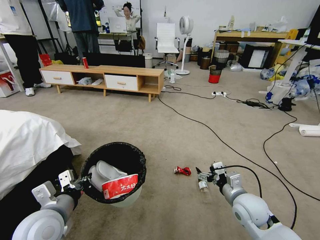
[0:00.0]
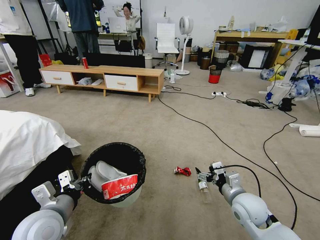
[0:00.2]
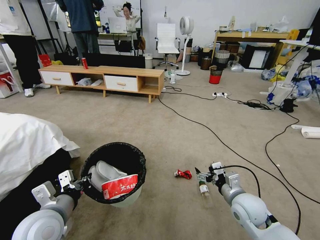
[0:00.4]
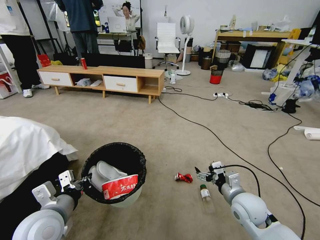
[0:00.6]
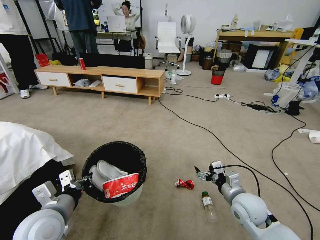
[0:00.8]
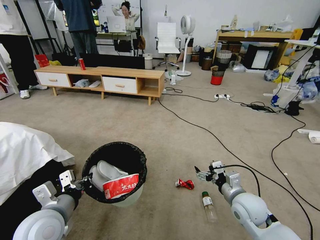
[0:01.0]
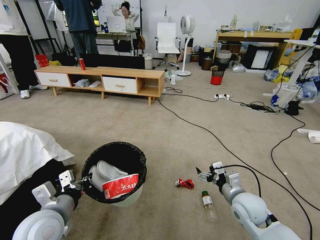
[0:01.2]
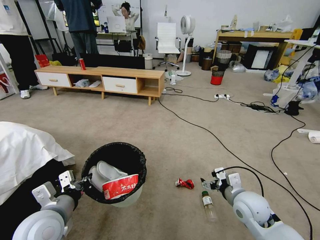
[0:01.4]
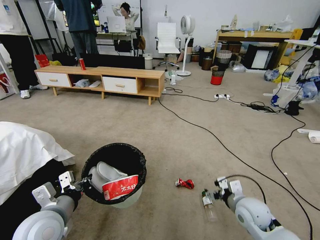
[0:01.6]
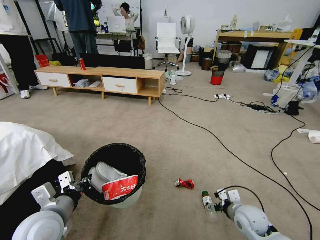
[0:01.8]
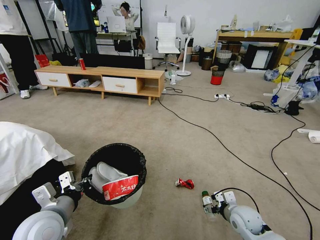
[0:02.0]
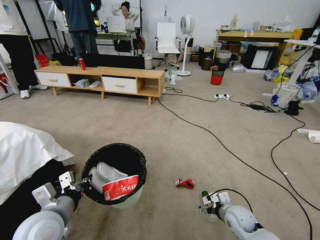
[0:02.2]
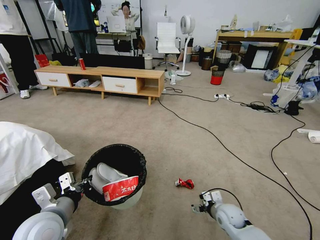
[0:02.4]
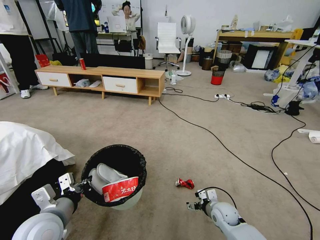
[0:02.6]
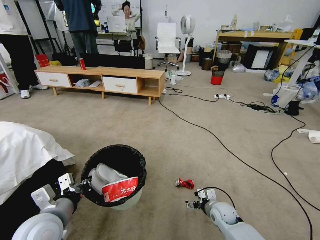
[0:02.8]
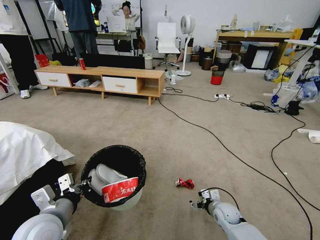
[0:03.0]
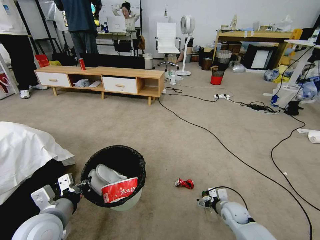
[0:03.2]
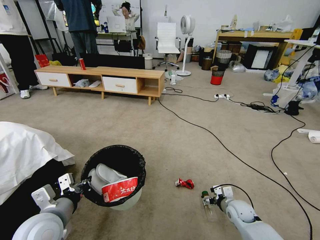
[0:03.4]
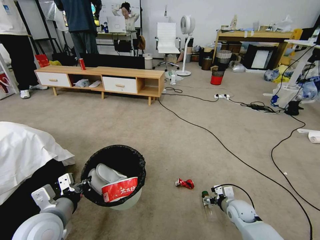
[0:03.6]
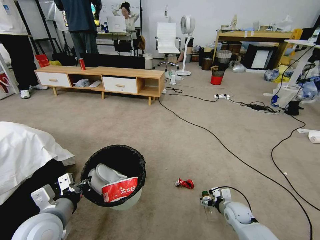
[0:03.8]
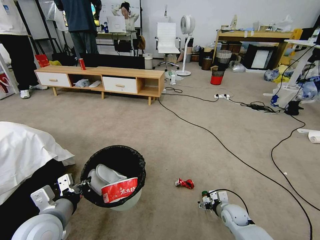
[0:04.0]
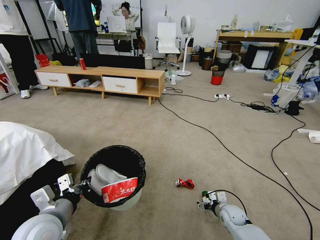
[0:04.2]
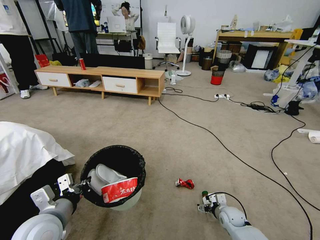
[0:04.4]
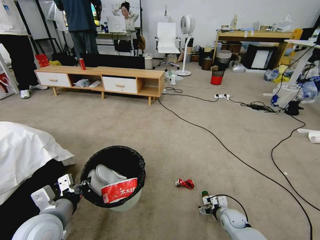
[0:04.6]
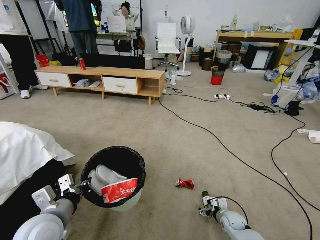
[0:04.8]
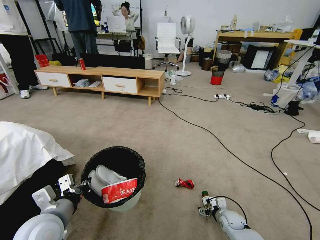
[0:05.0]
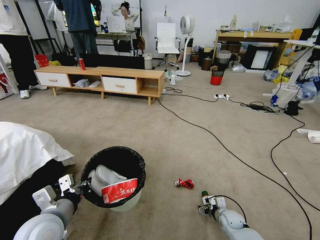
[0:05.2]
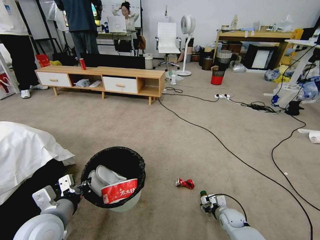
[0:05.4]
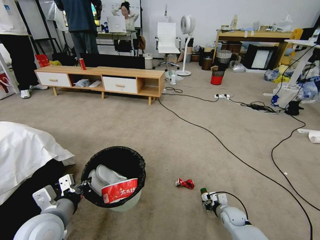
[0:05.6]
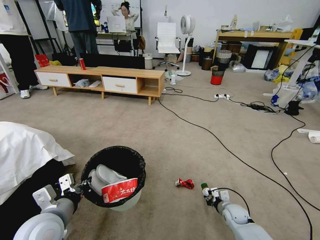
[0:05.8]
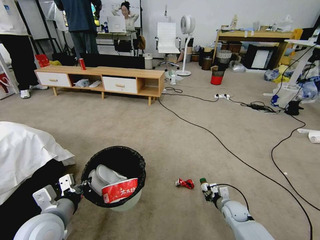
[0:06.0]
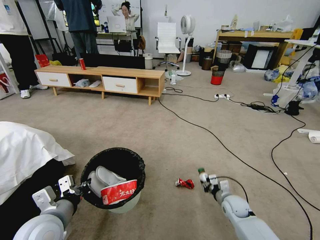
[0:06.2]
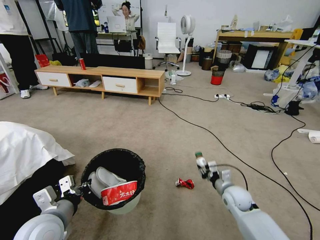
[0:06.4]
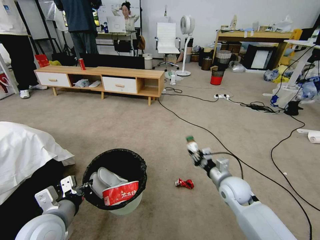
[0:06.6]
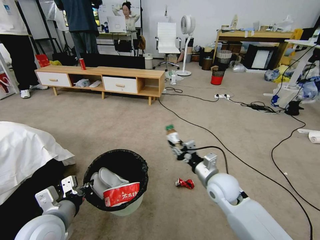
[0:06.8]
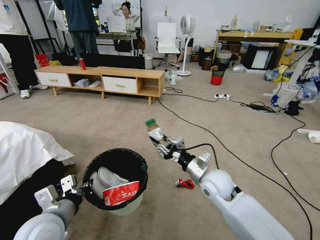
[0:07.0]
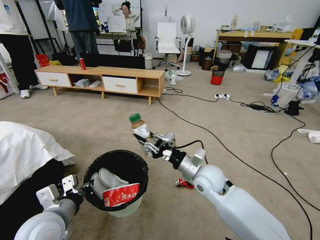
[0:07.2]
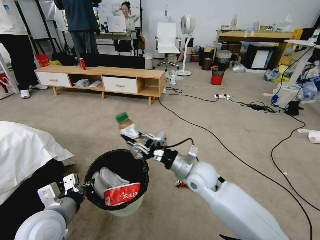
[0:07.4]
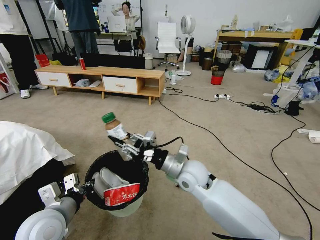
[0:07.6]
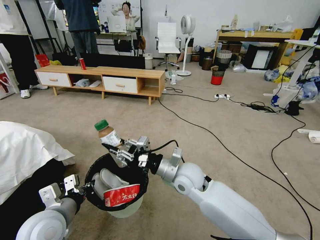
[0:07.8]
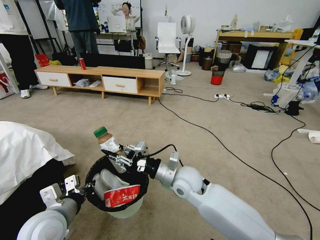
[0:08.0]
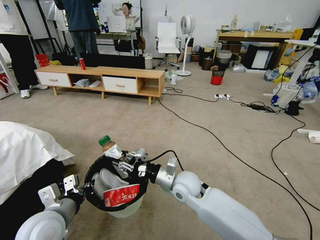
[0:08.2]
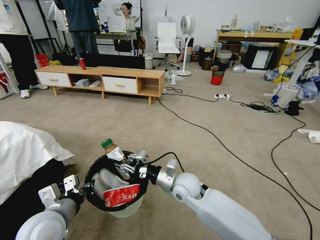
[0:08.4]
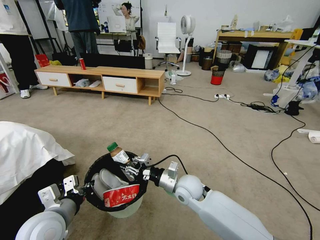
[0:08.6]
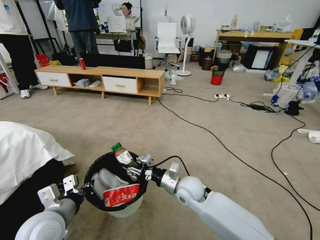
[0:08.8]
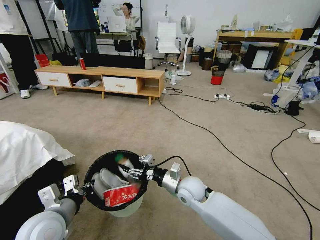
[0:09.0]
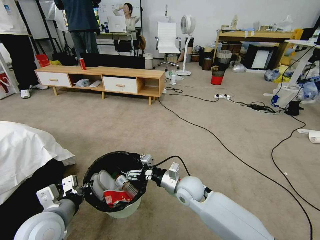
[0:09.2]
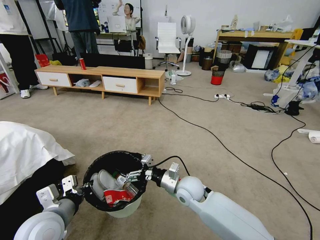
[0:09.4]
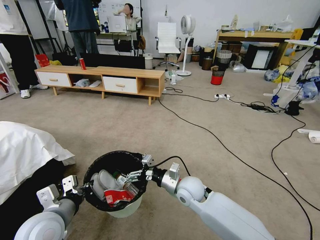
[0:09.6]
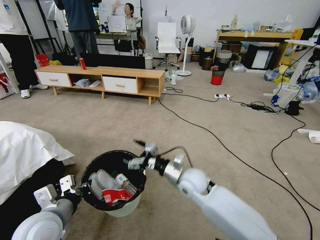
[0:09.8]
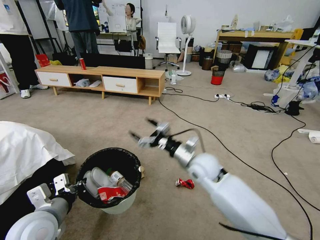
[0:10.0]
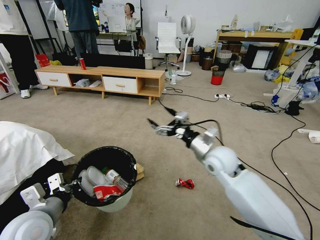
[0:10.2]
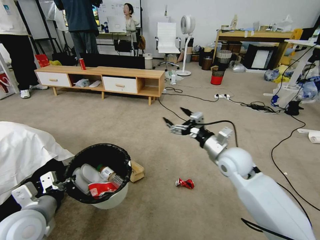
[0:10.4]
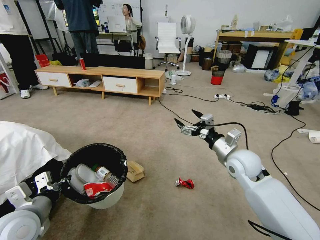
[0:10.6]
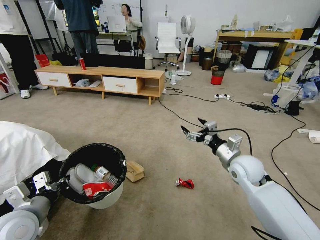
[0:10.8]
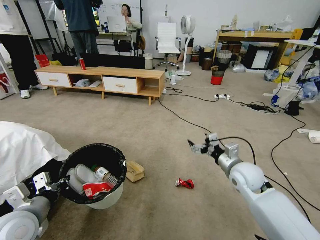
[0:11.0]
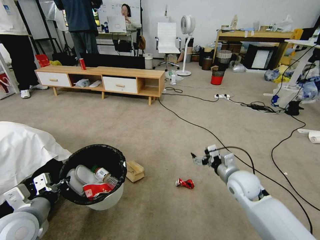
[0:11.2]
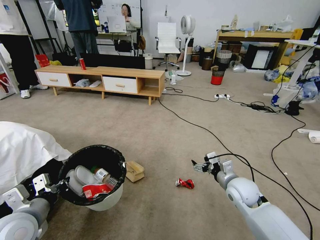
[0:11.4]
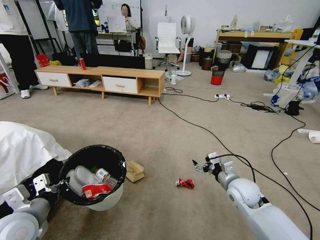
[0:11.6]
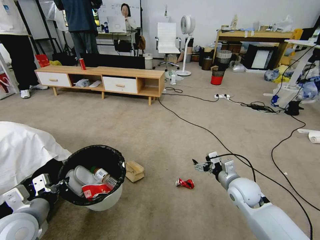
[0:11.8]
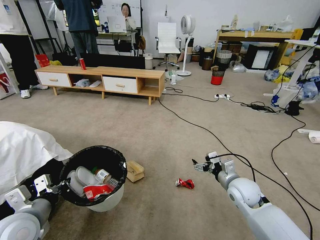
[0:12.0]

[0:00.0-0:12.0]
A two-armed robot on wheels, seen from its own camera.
Task of the whole recording: Pick up the trash bin and place the garbage on the floor into it.
0:01.6 to 0:03.0: The right gripper goes about 15 cm downward.
0:03.0 to 0:04.4: The grippers make only small movements.
0:04.4 to 0:06.0: The right gripper closes its fingers.
0:06.0 to 0:07.6: The right gripper travels upward and to the left by roughly 35 cm.
0:07.6 to 0:09.0: The right gripper moves downward, roughly 10 cm.
0:09.0 to 0:10.4: The right gripper is displaced to the right and upward by approximately 20 cm, and opens up.
0:10.4 to 0:12.0: The right gripper travels downward and to the right by about 15 cm.

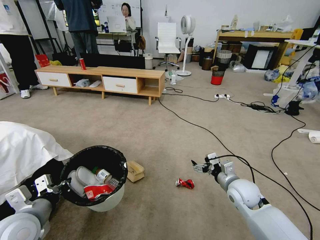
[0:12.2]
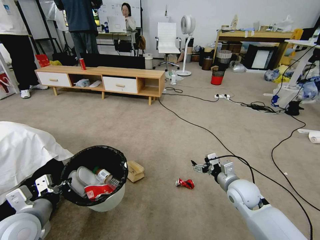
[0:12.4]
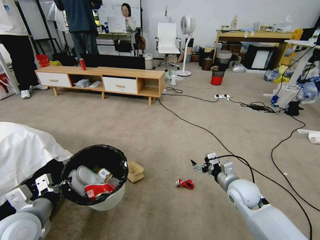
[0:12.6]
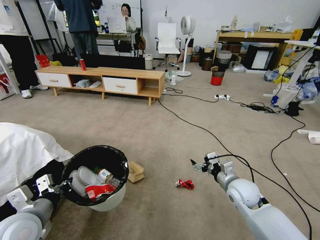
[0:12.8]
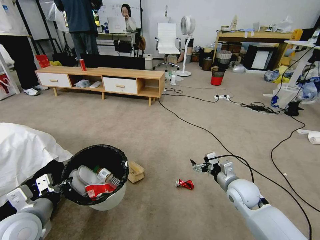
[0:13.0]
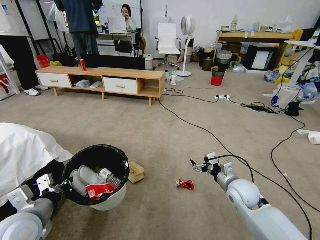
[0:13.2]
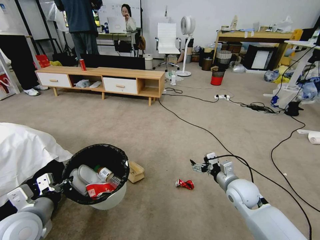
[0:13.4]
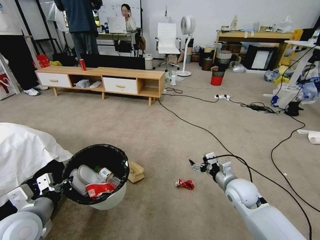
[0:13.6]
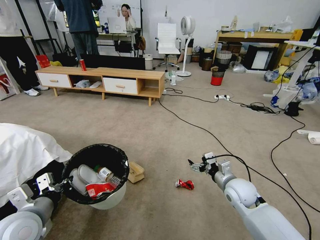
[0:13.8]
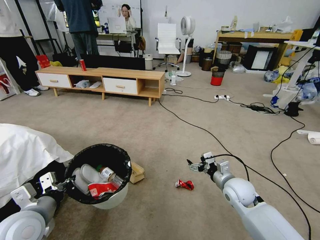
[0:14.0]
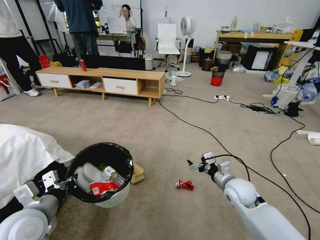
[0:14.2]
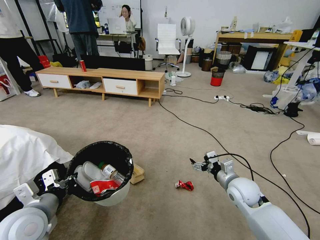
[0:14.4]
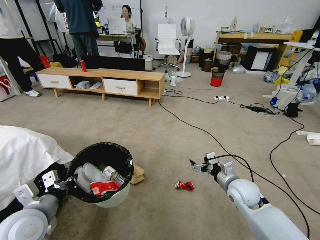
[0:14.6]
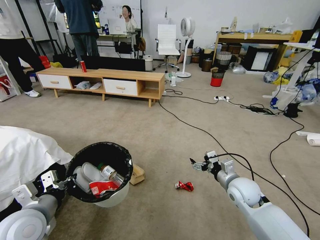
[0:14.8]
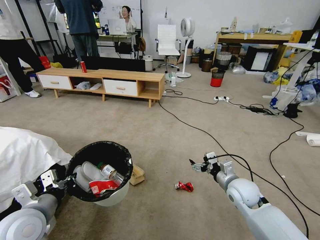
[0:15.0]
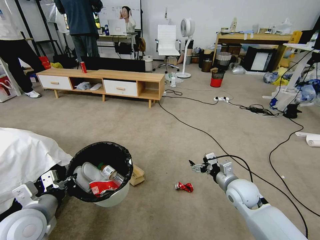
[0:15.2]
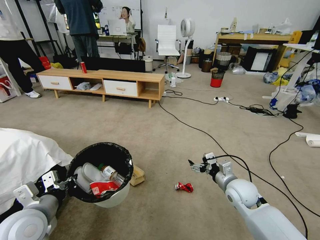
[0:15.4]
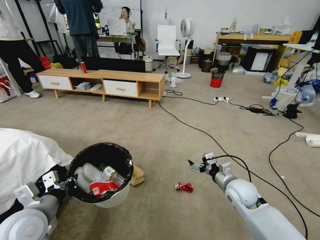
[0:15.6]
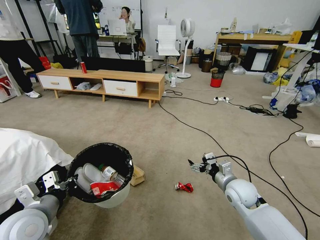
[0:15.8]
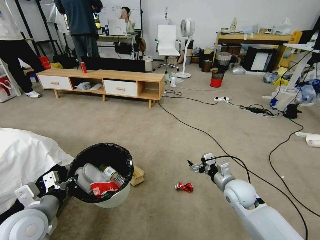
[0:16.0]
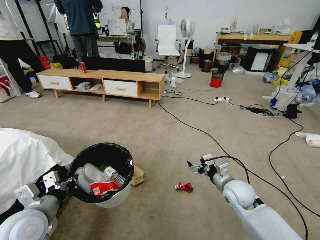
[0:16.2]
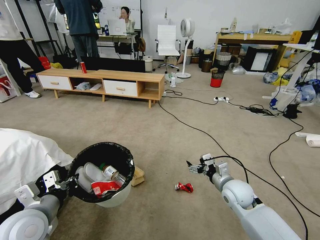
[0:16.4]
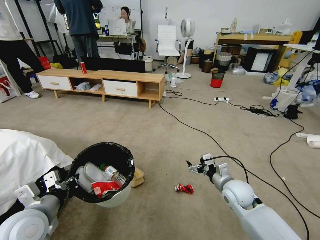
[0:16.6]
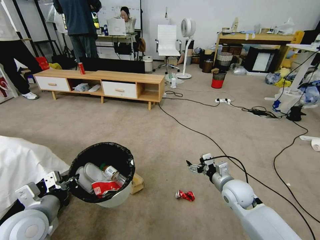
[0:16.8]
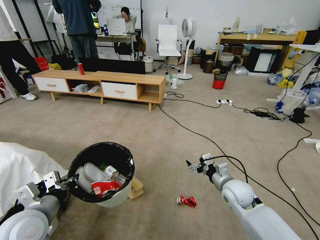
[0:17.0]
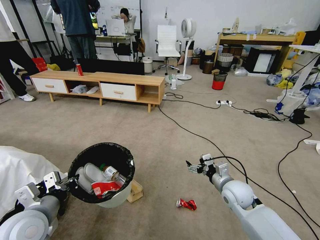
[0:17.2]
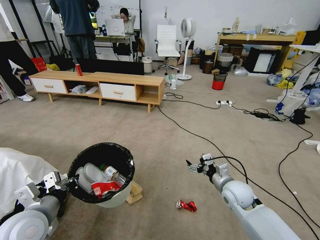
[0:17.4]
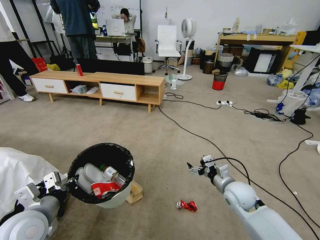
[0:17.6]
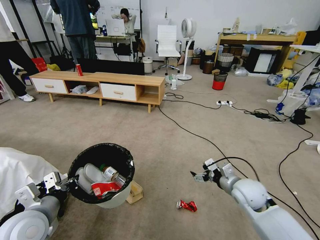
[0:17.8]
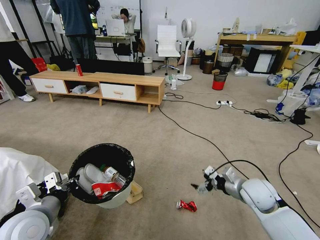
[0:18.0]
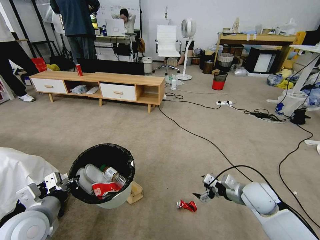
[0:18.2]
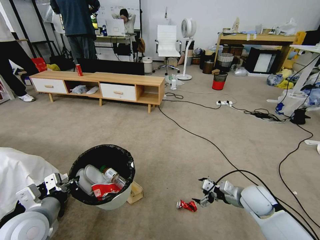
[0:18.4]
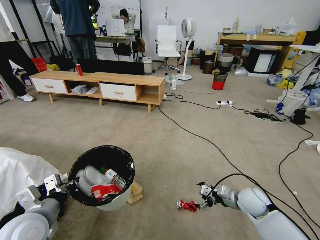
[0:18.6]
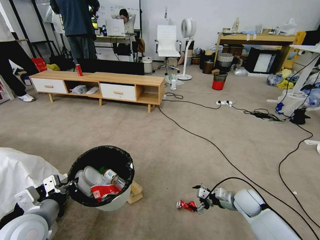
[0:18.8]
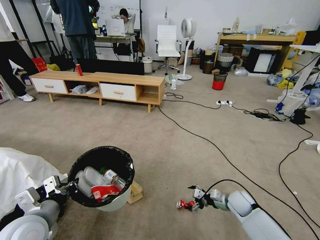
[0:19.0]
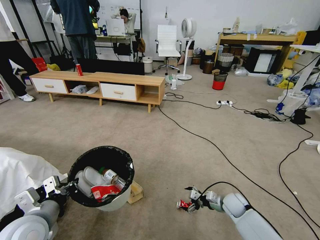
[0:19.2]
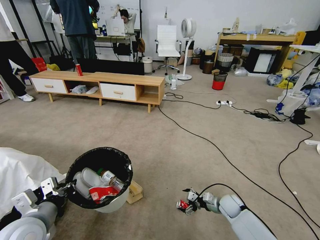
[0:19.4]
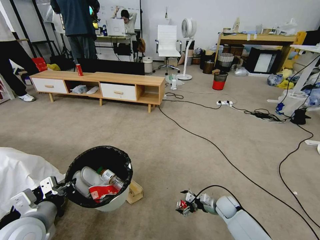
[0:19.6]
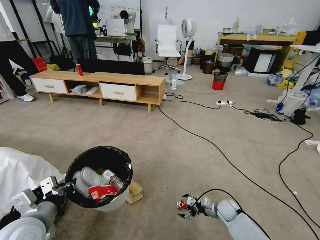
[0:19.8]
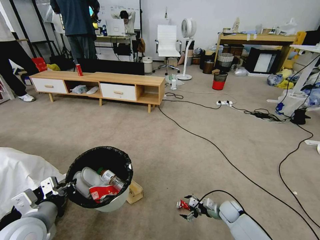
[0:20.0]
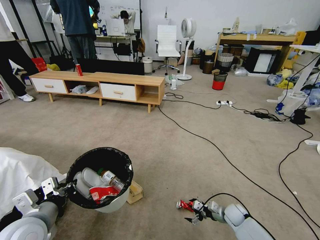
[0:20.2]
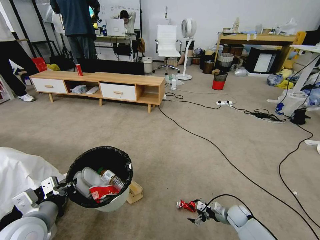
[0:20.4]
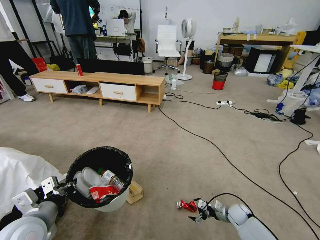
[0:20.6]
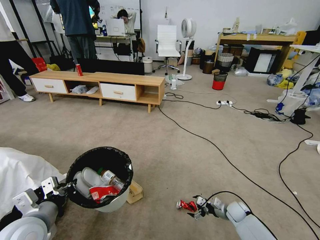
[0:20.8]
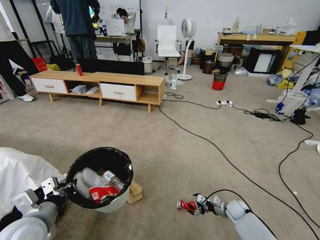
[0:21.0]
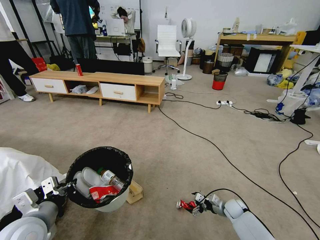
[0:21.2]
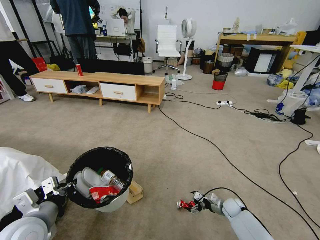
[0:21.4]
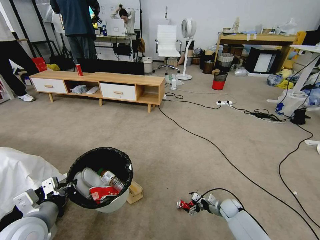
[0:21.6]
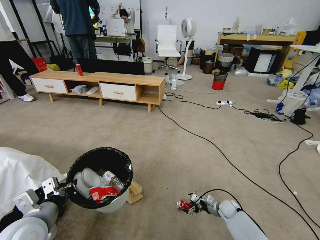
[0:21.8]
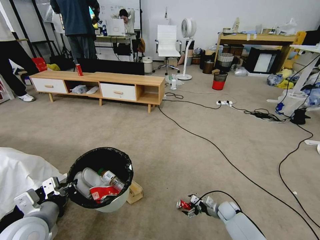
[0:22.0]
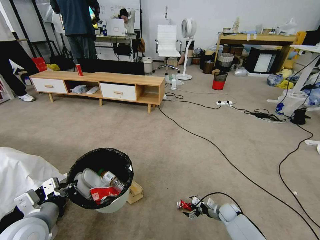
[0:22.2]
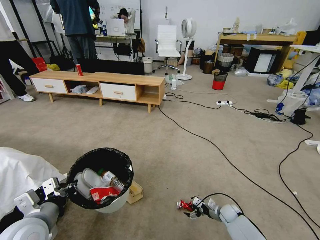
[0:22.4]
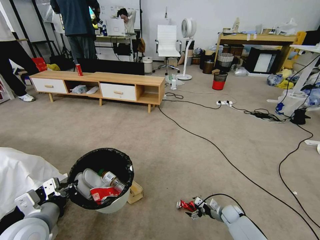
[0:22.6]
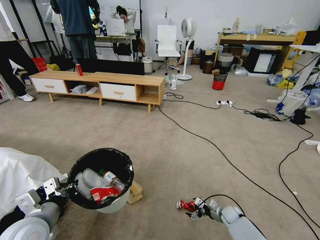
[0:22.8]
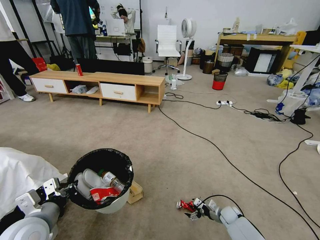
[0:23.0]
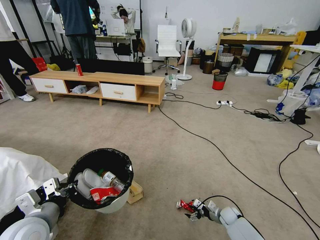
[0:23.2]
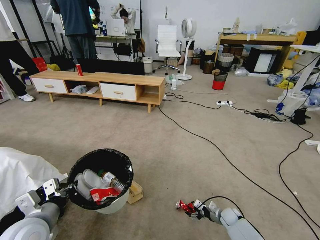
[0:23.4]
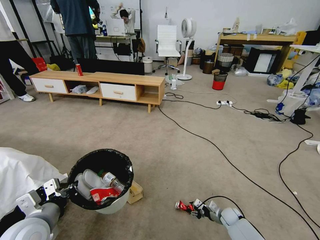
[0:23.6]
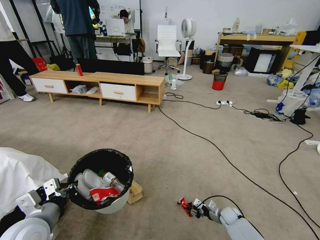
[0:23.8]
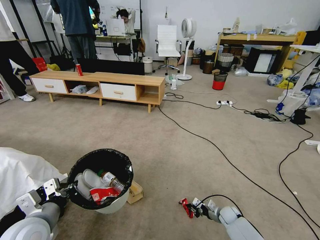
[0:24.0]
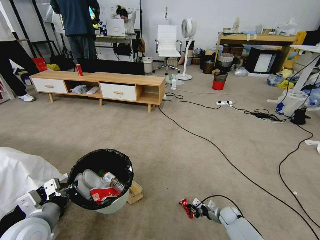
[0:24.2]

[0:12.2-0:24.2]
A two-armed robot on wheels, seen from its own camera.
Task of the whole recording: Pick up the trash bin and place the garbage on the floor into it.
0:12.2 to 0:13.8: The two grippers keep their place.
0:15.2 to 0:16.6: The grippers make only small movements.
0:16.6 to 0:18.2: The right gripper is displaced to the right by some 5 cm.
0:18.2 to 0:19.8: The right gripper shifts roughly 20 cm downward.
0:19.8 to 0:21.2: The right gripper moves to the right, about 5 cm.
0:21.2 to 0:22.6: The grippers move only a little.
0:22.6 to 0:24.2: The right gripper closes its fingers.
